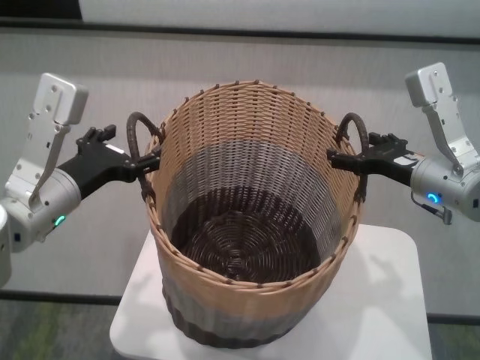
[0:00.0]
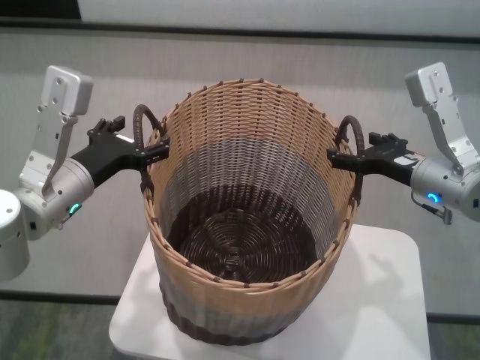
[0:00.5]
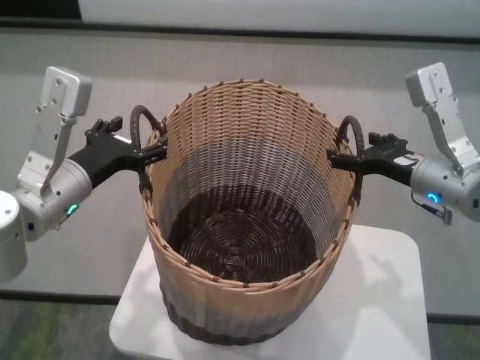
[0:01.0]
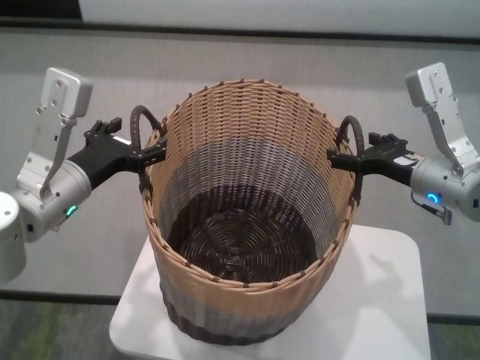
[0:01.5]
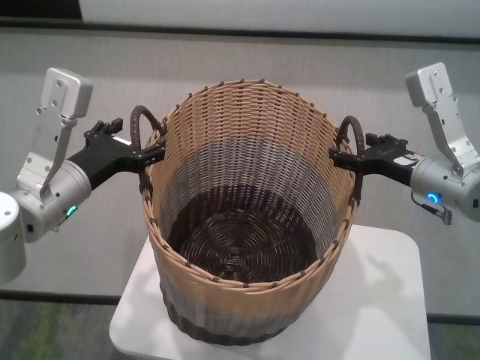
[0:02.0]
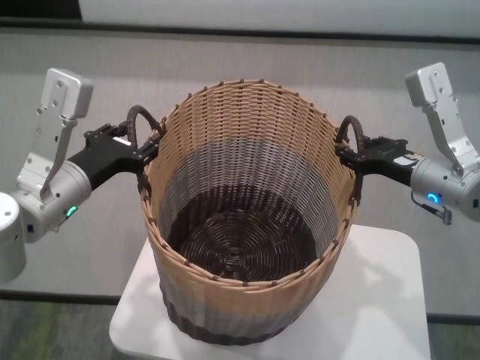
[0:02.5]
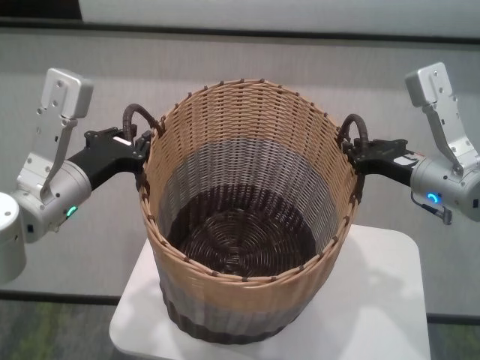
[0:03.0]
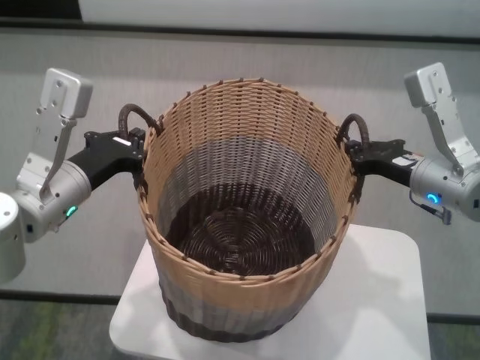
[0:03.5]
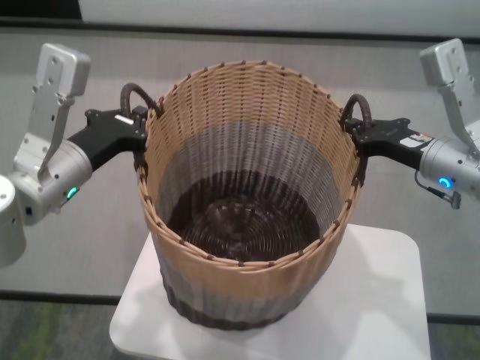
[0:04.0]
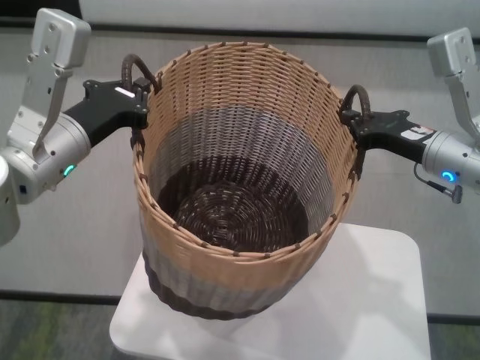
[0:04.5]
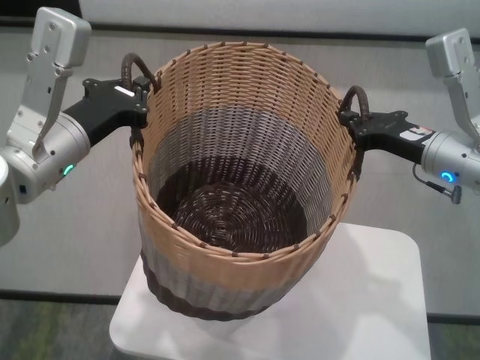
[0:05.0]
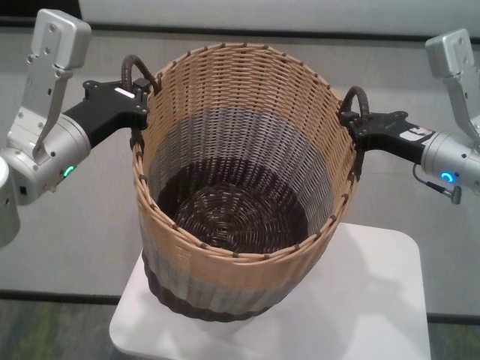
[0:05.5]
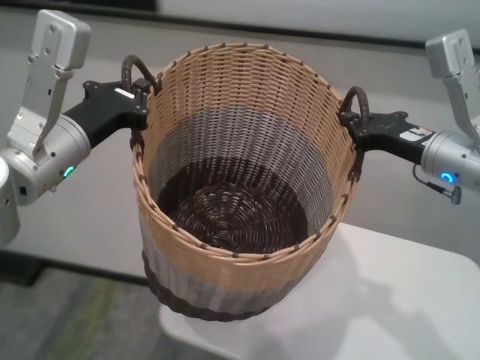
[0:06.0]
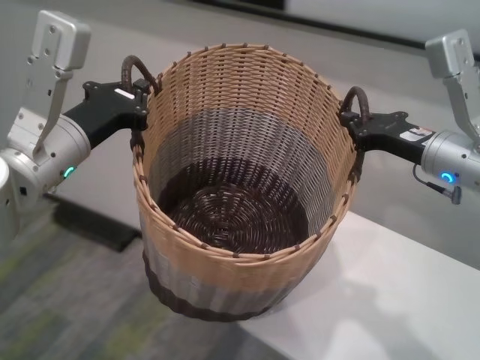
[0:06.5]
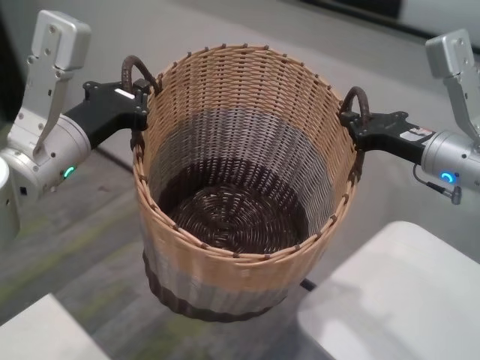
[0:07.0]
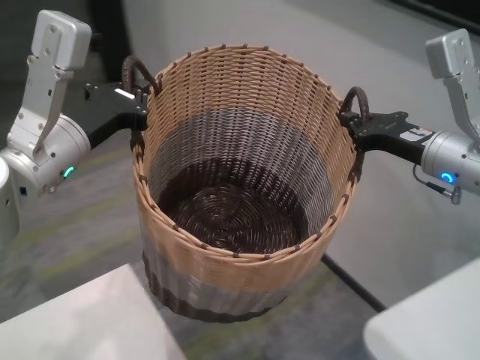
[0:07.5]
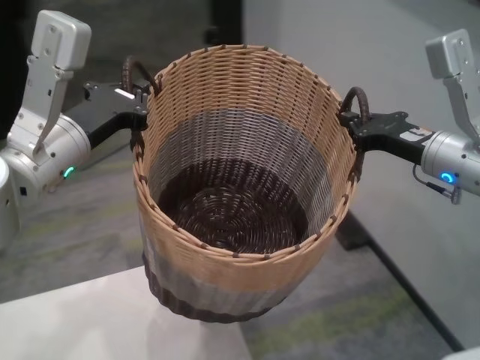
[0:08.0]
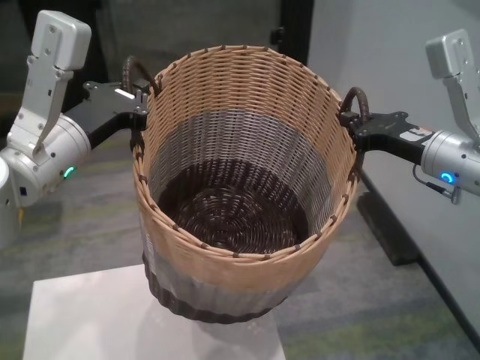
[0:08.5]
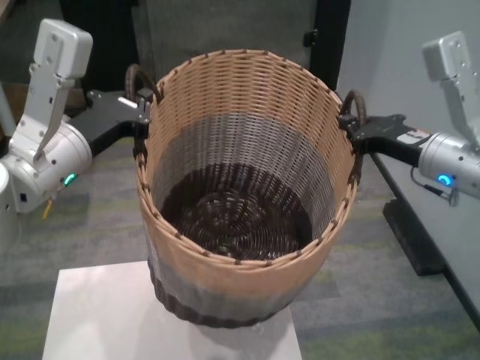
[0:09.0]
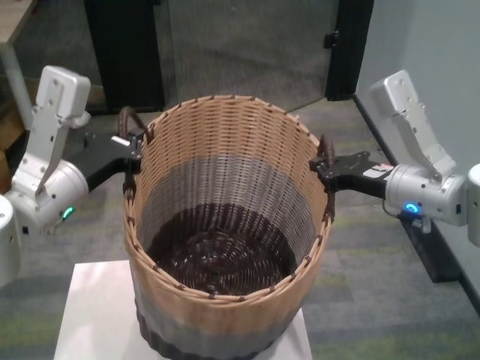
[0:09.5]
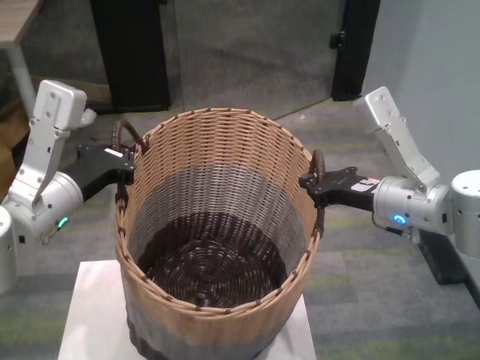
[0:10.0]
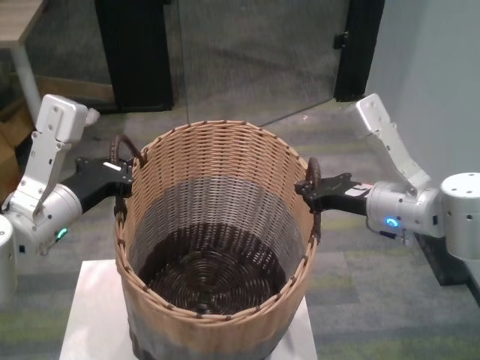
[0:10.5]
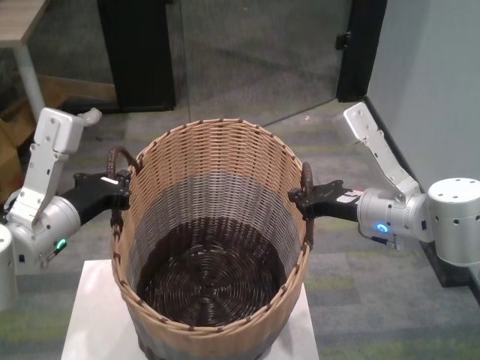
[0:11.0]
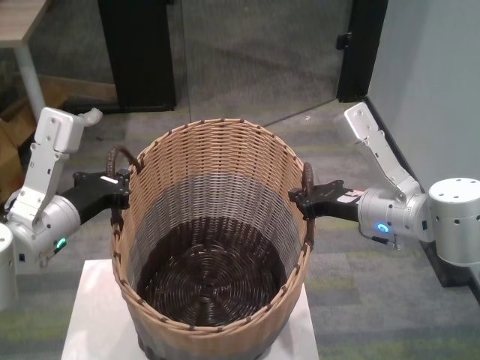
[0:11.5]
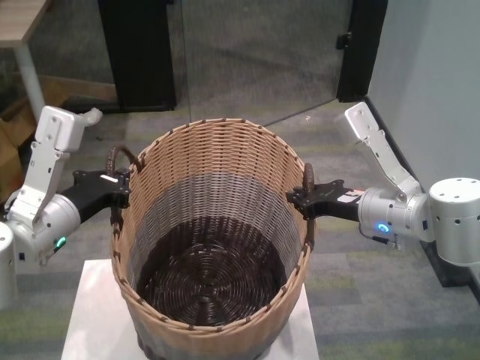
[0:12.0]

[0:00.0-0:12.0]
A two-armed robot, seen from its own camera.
Task of the whole recording: carry the clothes basket in coordination with both hands.
Step, 0:00.0 to 0:03.0: Grasp the basket with both grippers.
Step, 0:03.5 to 0:09.0: Move the basket above the other table.
